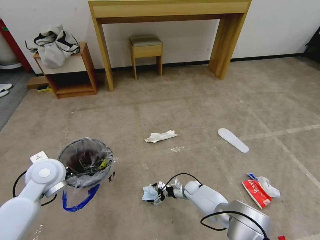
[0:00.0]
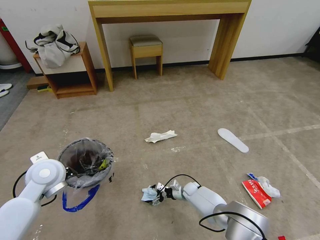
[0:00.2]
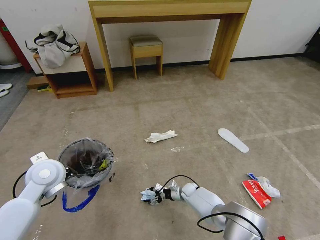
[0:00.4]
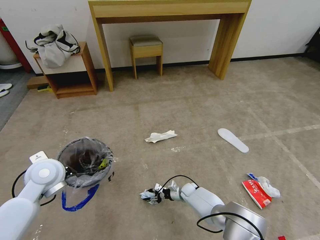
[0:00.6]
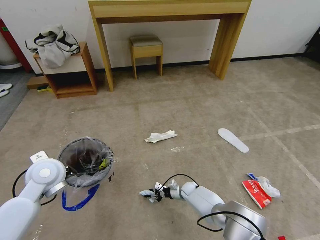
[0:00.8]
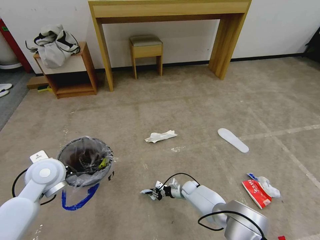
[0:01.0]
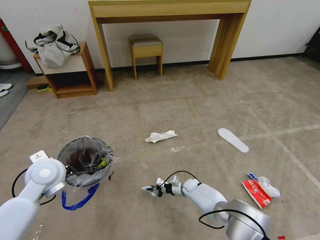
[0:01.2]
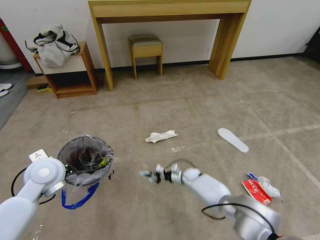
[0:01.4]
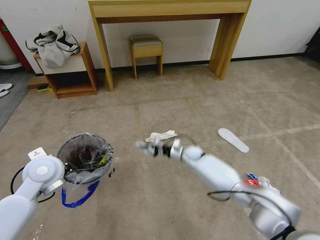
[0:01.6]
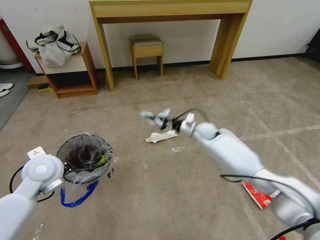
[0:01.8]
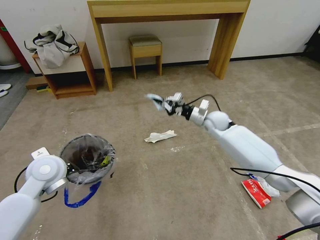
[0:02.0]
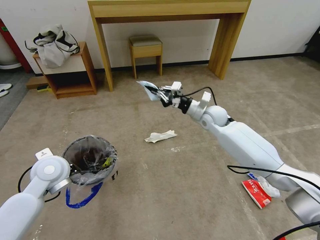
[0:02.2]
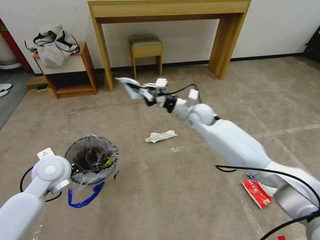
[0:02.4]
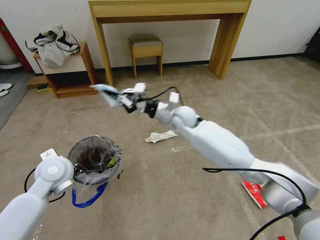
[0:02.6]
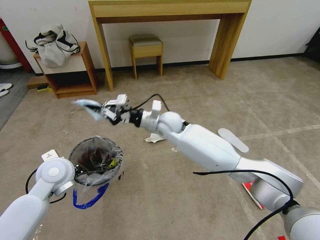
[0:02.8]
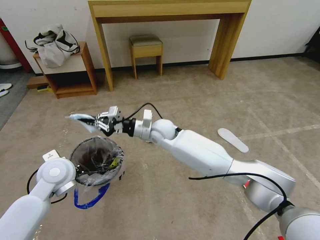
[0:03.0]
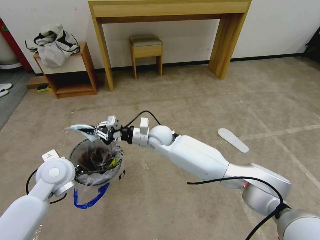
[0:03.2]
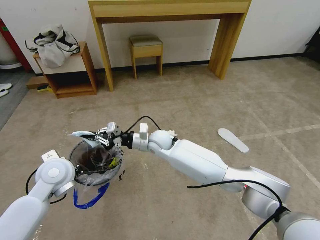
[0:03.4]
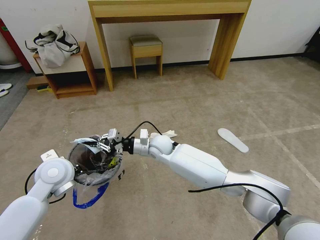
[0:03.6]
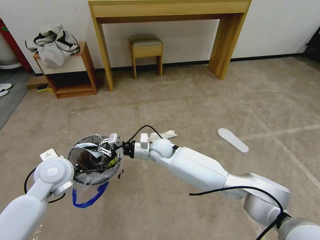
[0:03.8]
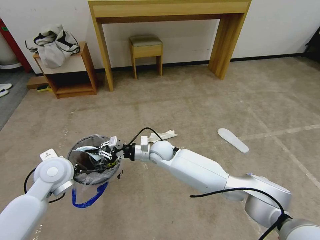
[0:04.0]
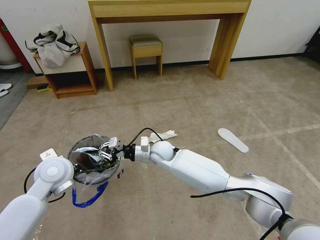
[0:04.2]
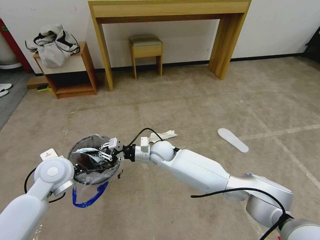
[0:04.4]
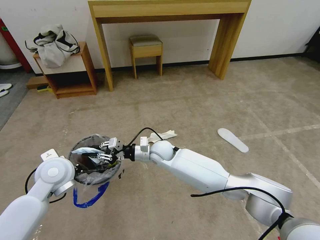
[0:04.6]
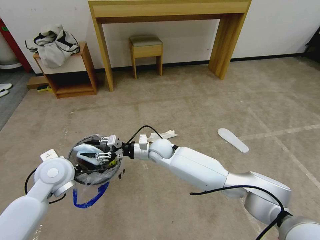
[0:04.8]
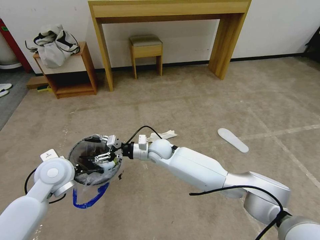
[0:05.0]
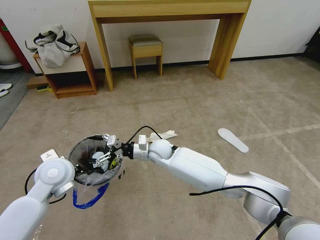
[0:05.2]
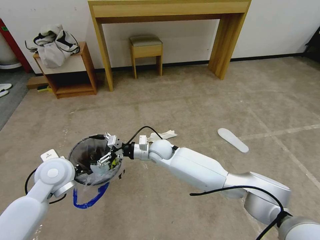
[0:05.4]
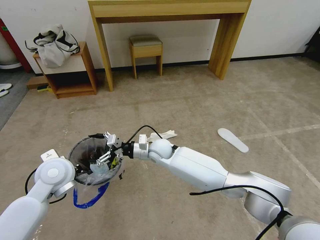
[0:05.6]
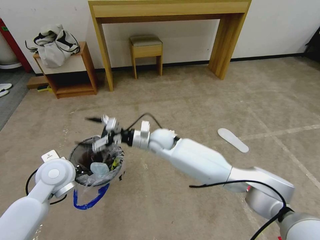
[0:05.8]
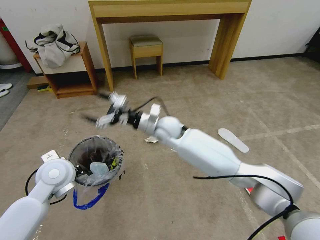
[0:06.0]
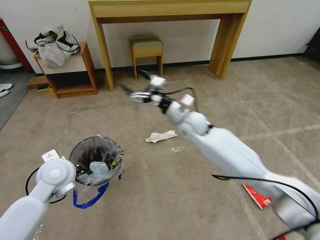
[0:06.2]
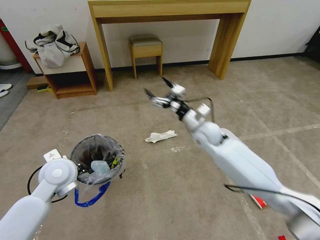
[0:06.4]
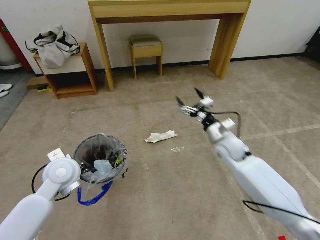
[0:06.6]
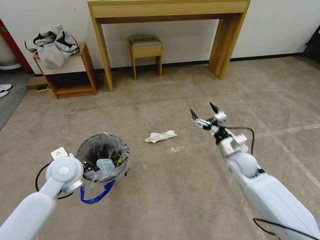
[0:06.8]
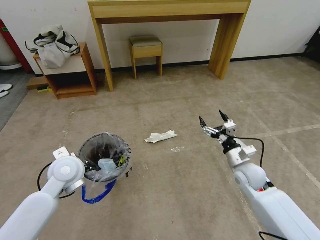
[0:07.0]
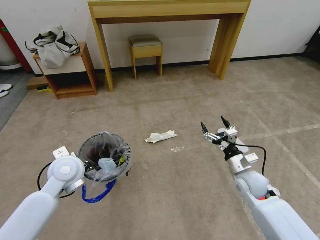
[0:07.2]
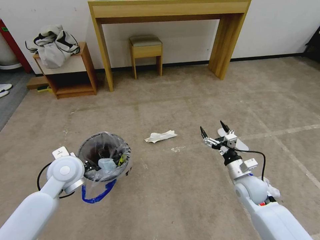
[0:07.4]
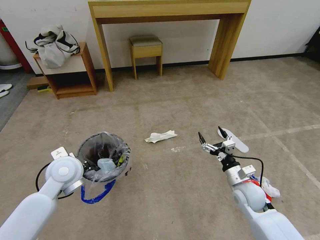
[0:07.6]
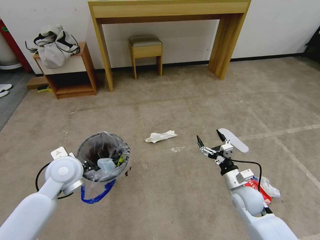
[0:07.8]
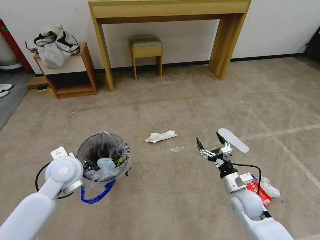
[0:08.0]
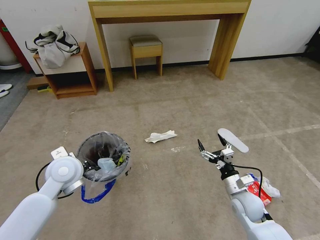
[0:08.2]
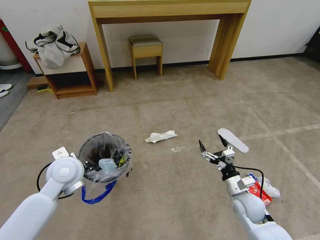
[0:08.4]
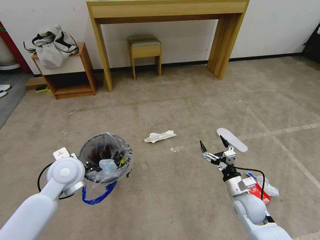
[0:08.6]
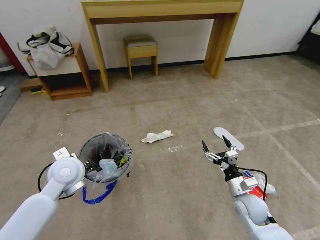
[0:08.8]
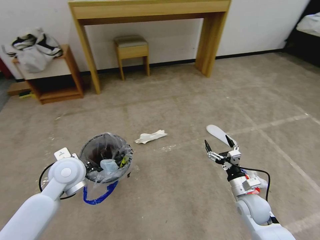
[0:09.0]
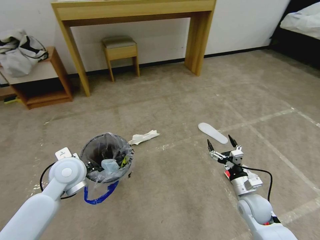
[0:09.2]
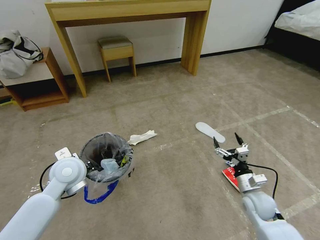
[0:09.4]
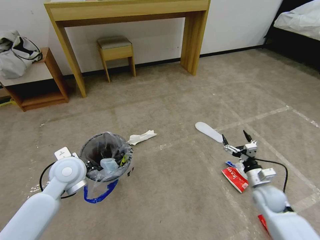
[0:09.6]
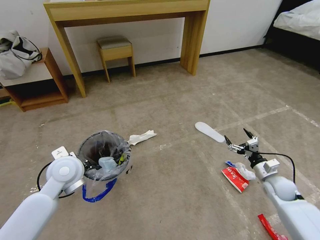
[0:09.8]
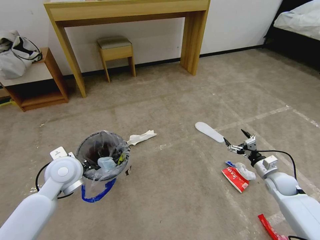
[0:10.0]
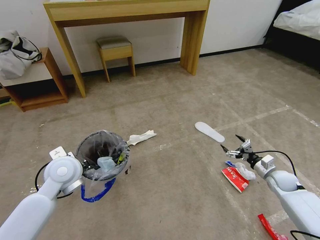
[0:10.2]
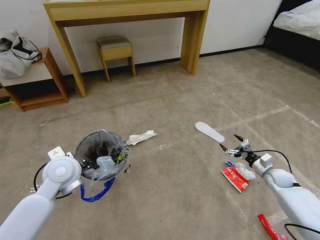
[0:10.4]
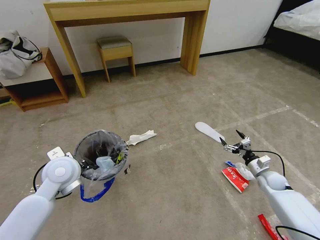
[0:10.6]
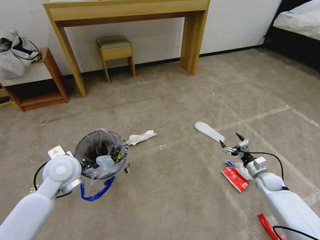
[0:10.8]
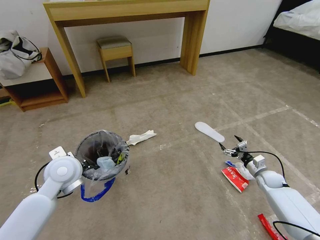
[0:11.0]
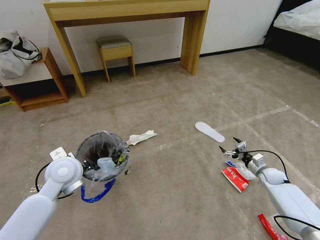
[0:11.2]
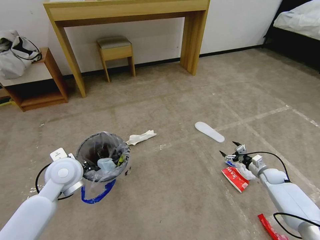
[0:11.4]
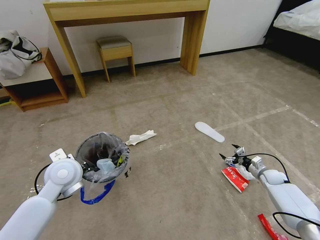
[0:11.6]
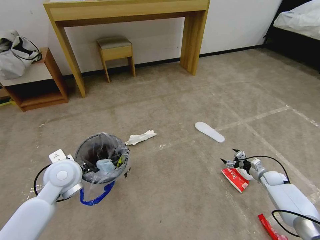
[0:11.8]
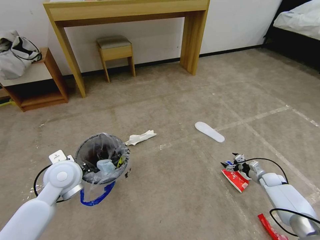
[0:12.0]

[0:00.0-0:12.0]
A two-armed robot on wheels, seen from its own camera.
Task of the whole recording: Pick up the trash bin and place the garbage on the floor into it.
0:00.0 to 0:01.6: The right gripper travels upward and forward by roughly 25 cm, and closes.
0:01.6 to 0:03.0: The right gripper moves upward and to the left, about 25 cm.
0:03.0 to 0:04.4: The right gripper is displaced downward by approximately 10 cm.
0:04.4 to 0:06.0: The right gripper travels upward by roughly 10 cm, and opens.
0:06.0 to 0:07.6: The right gripper moves to the right, backward and downward, about 35 cm.
0:09.0 to 0:10.4: The right gripper is displaced to the right and forward by some 20 cm.
0:10.4 to 0:12.0: The right gripper is displaced downward by roughly 10 cm.

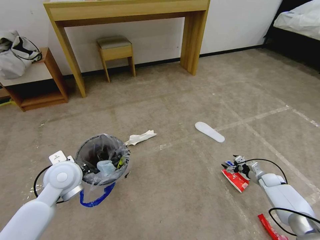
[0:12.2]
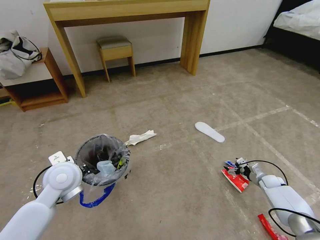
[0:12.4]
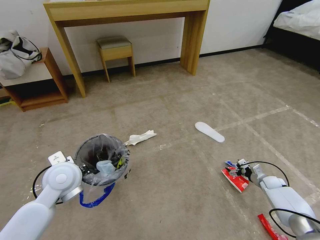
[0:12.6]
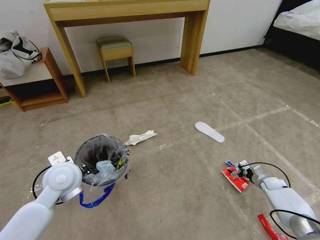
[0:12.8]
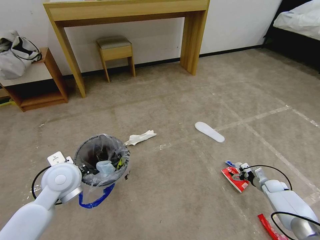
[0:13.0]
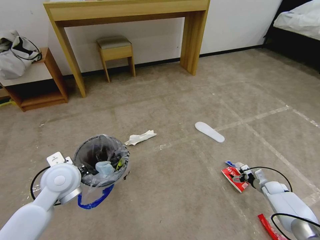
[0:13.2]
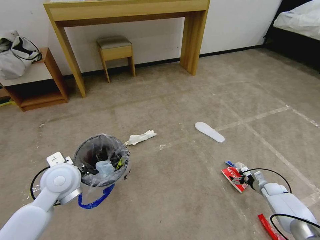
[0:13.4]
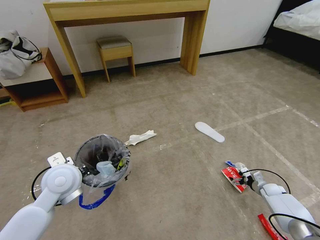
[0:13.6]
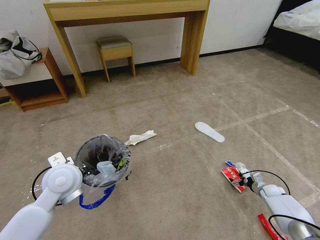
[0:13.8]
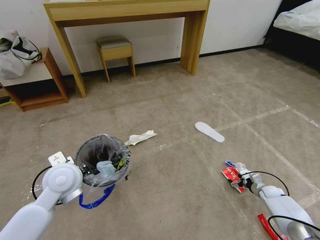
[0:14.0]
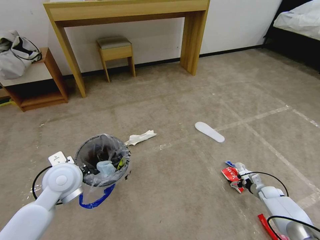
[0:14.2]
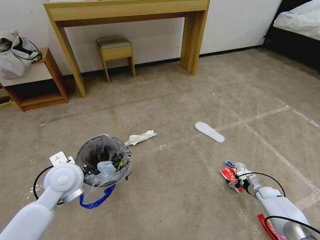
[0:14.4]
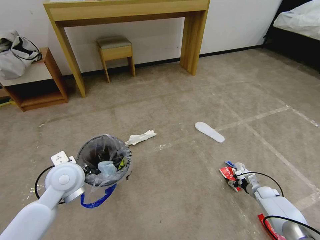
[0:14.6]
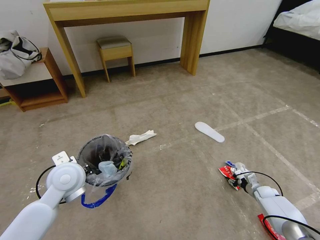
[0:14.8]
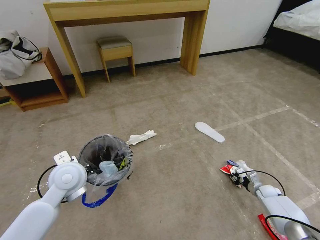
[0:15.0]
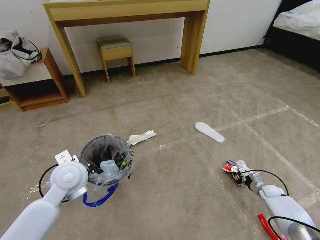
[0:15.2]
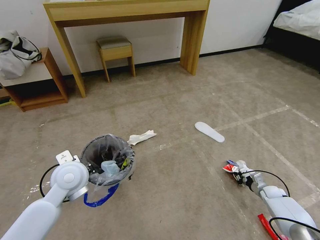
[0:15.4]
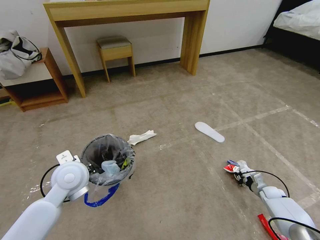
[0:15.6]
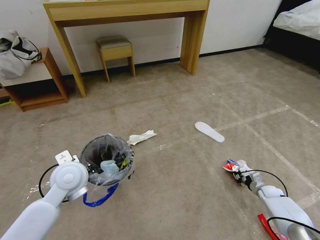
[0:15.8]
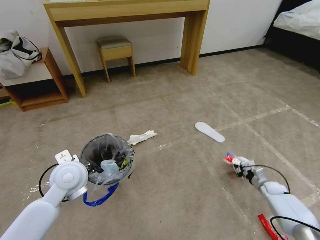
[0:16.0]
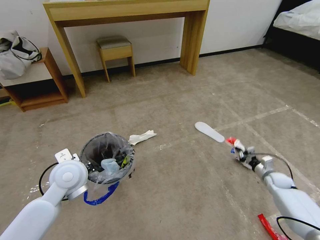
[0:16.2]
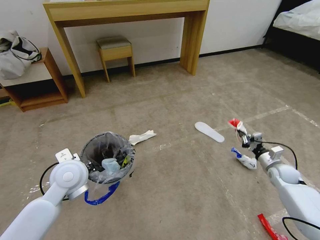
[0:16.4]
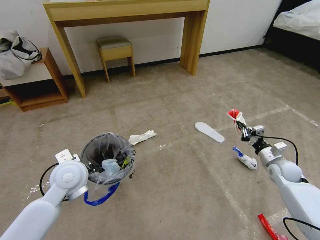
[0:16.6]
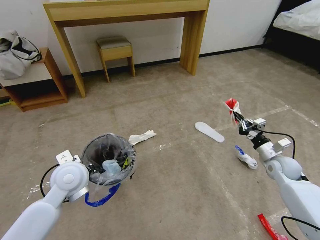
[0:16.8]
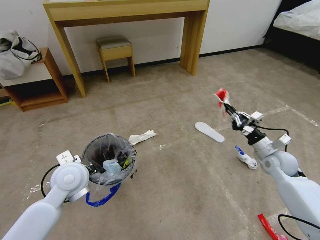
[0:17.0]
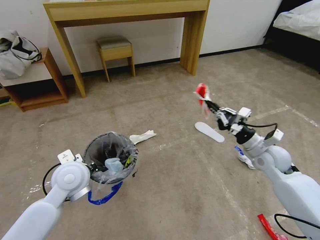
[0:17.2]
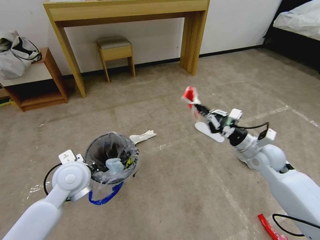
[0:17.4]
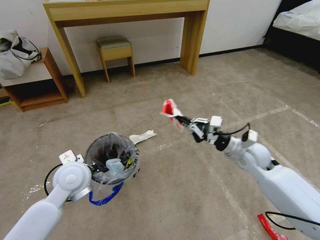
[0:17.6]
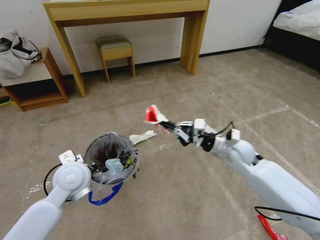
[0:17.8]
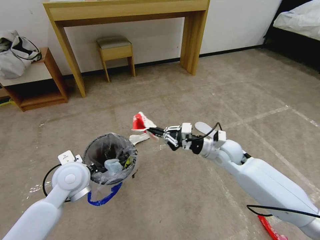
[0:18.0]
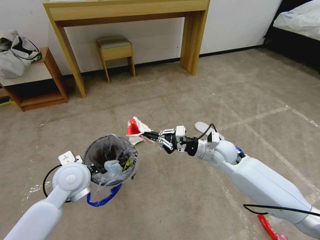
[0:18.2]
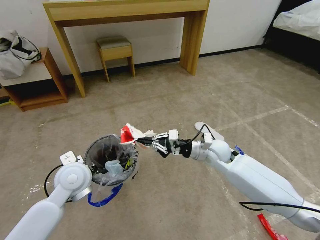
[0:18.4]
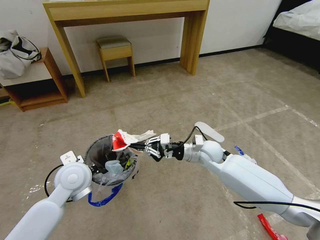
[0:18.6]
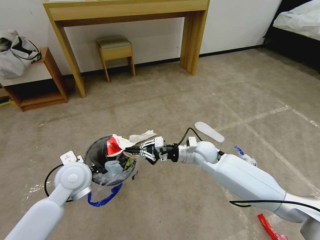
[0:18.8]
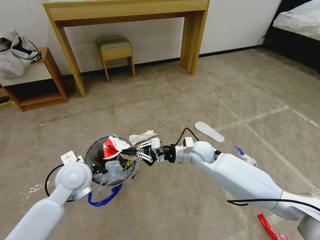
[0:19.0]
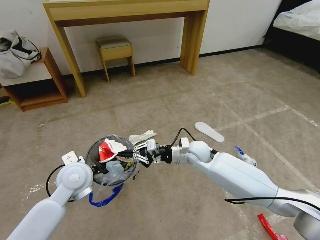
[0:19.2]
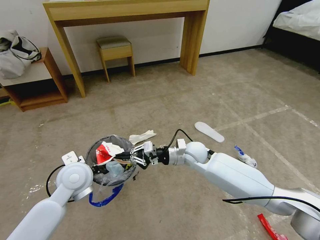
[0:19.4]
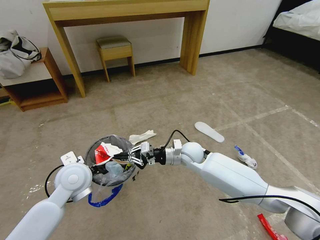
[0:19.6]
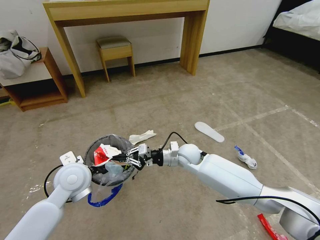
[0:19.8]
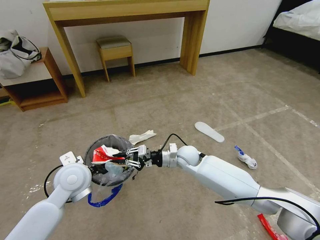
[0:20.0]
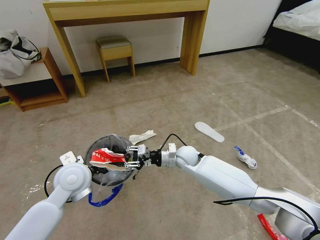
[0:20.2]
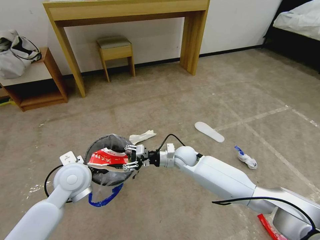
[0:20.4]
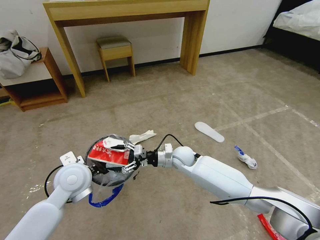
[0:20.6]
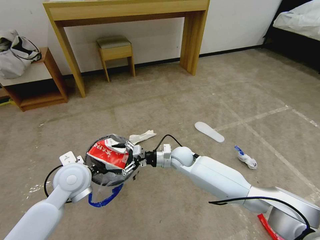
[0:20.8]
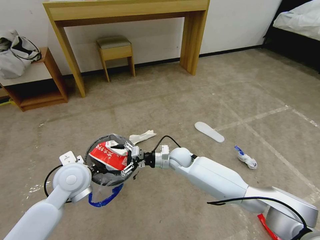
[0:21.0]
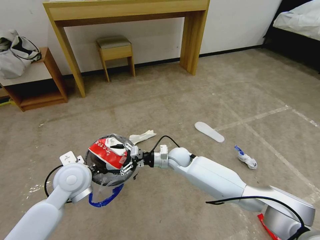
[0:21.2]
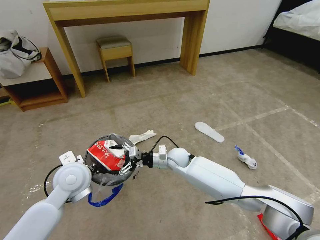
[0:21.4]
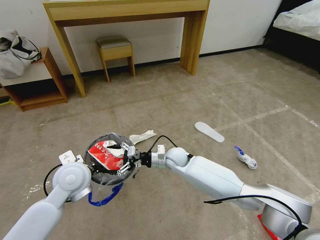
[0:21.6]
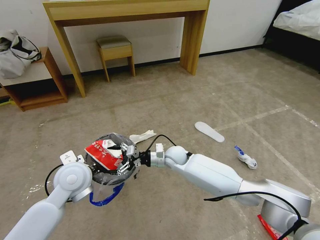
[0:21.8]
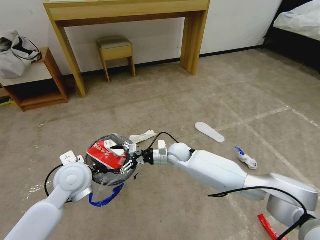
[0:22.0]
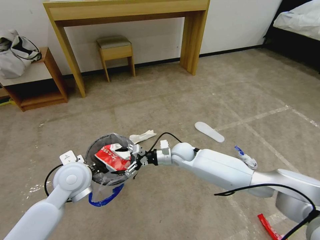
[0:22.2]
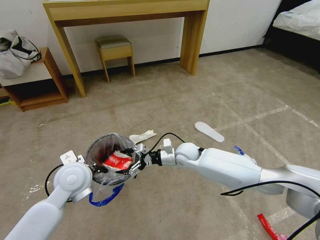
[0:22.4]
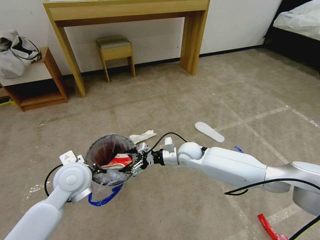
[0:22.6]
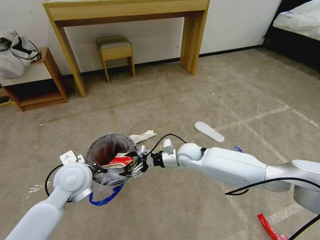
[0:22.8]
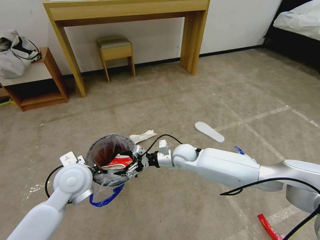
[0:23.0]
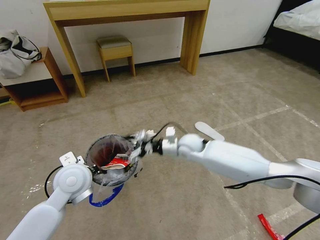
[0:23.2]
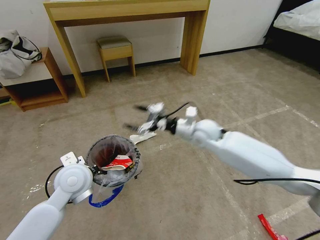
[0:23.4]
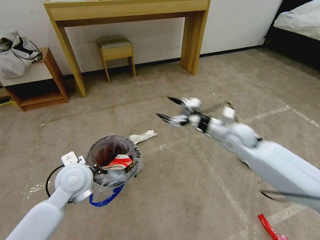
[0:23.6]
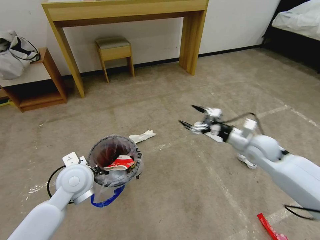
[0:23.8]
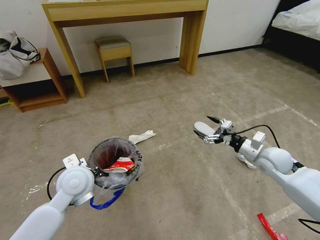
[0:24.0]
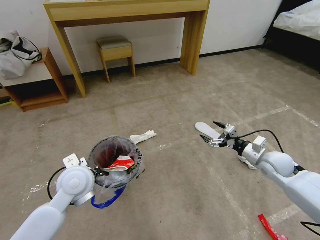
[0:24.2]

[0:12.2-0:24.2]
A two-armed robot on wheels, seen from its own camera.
Task of the whole recording: Pick up the trash bin and place the garbage on the floor into it.
0:12.2 to 0:13.8: The grippers move only a little.
0:13.8 to 0:15.2: The right gripper closes up.
0:15.2 to 0:16.6: The right gripper travels upward by about 20 cm.
0:16.6 to 0:18.2: The right gripper heads to the left, covering some 25 cm.
0:18.2 to 0:19.8: The right gripper is displaced to the left by about 10 cm.
0:19.8 to 0:21.2: The right gripper changes place by about 5 cm, and opens up.
0:21.2 to 0:22.6: The right gripper shifts by some 5 cm.
0:22.6 to 0:24.2: The right gripper heads to the right, covering approximately 30 cm.
